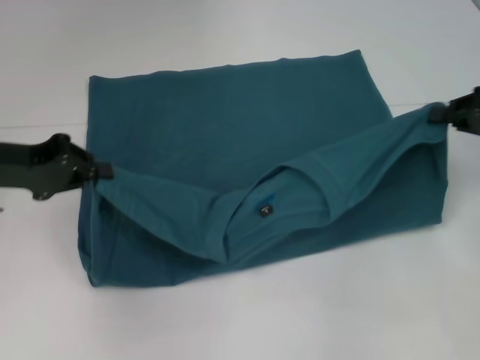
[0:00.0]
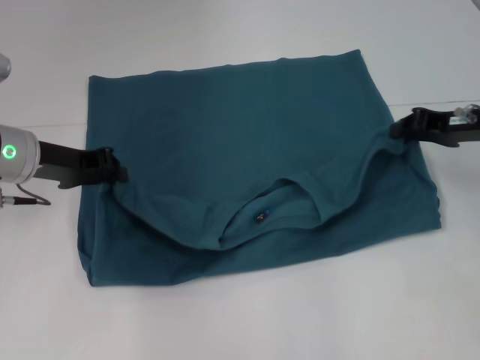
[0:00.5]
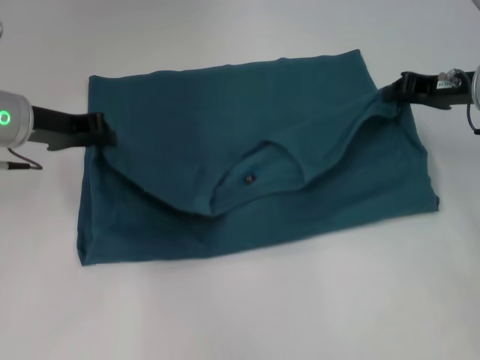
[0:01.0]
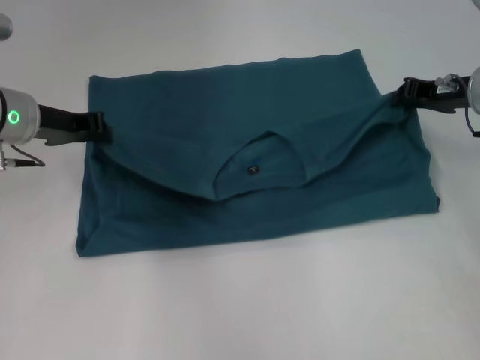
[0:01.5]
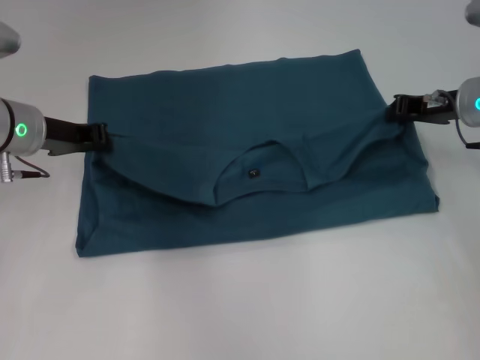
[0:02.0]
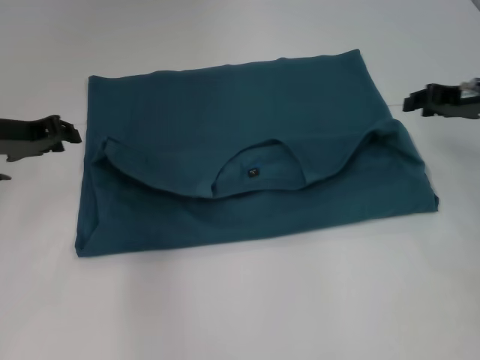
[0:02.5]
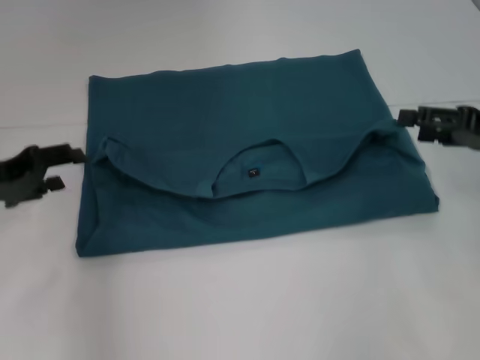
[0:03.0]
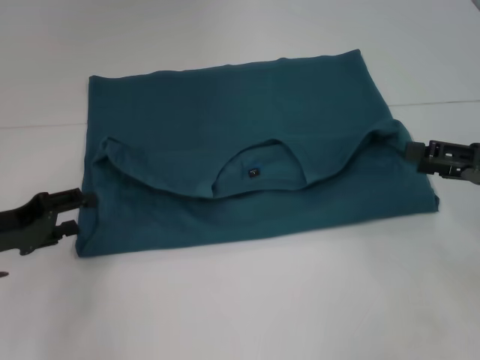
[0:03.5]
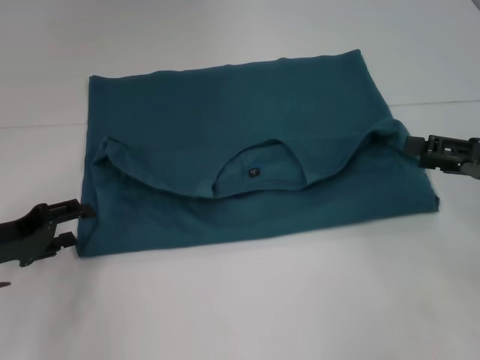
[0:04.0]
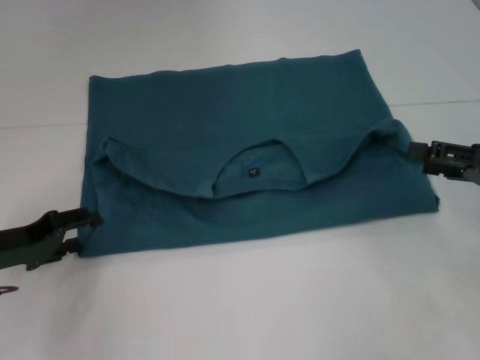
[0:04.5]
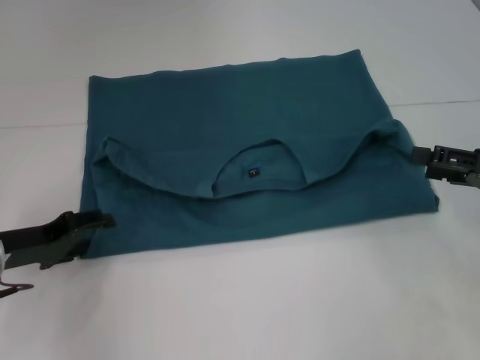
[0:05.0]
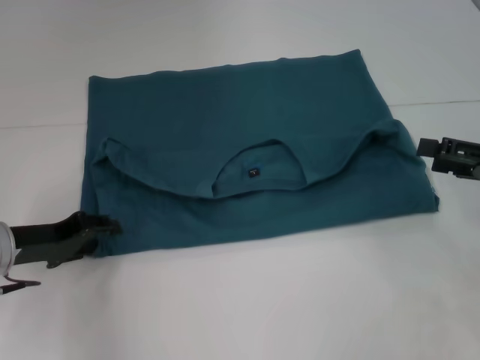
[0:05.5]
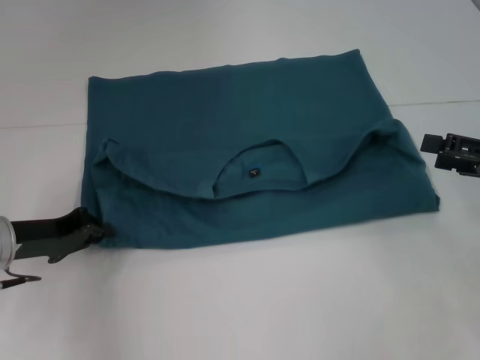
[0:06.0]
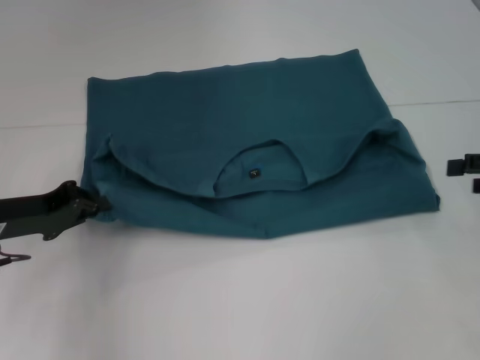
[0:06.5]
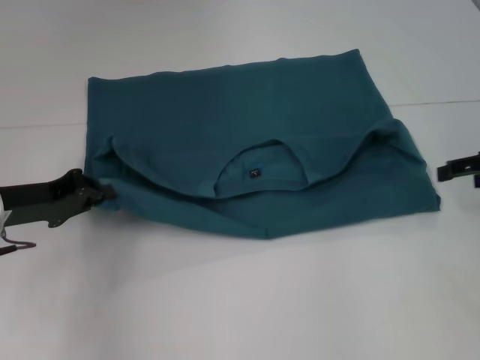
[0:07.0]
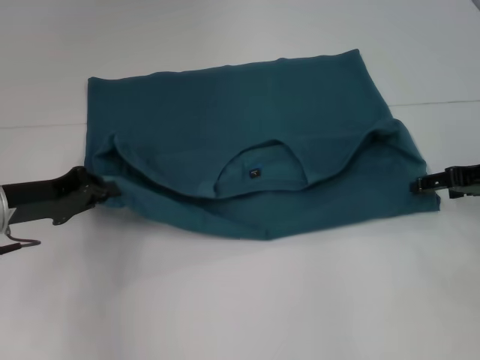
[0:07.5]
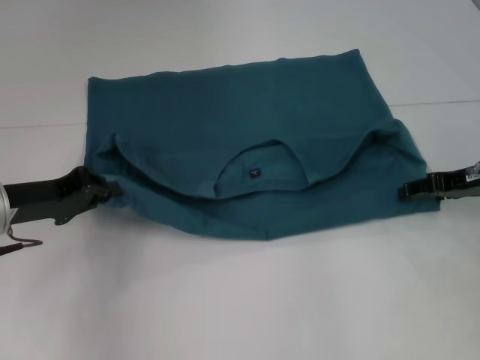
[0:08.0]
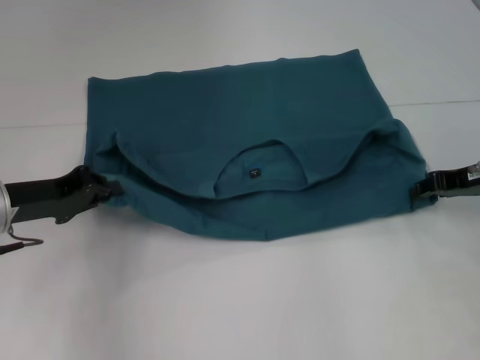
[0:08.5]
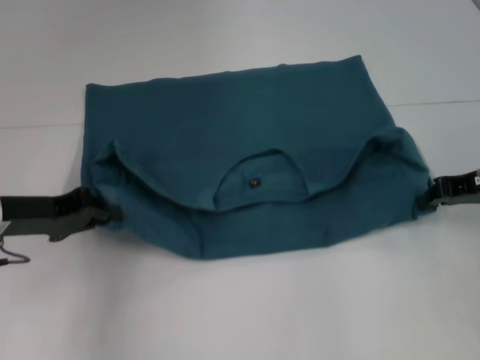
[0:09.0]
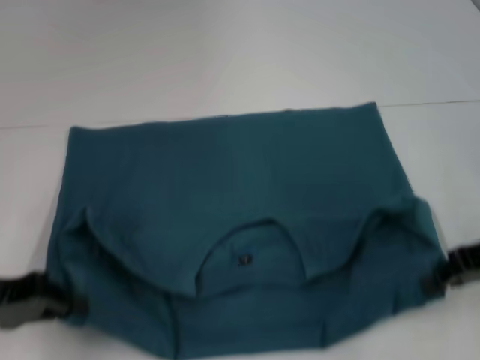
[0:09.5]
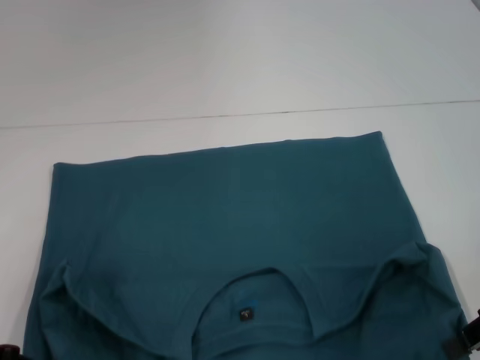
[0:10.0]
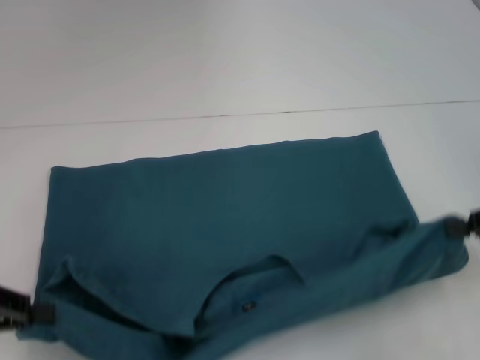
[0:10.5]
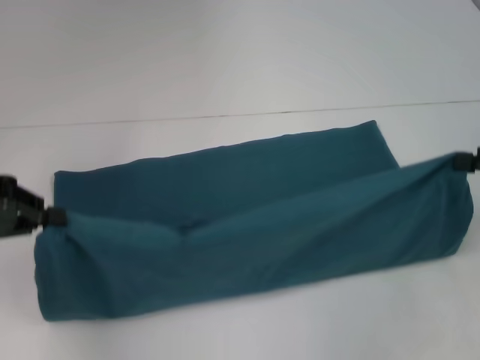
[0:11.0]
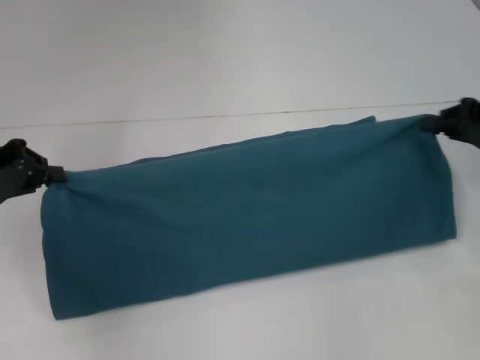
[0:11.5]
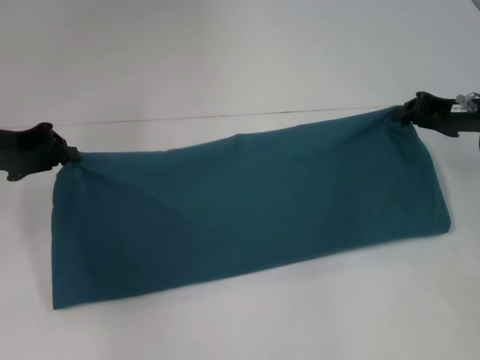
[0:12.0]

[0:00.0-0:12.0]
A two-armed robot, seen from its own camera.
Step, 0:00.0 to 0:02.0: Fold the clothes to the left.
Step, 0:00.0 to 0:02.0: Fold the clothes to the right.
Step, 0:02.5 to 0:09.0: Pull the clothes with your left hand.
Step, 0:02.5 to 0:09.0: Pull the clothes with your right hand.
0:00.0 to 0:02.0: The right gripper travels forward and to the left by about 10 cm. Meanwhile the left gripper shifts some 10 cm forward and to the right.
0:02.0 to 0:04.0: The left gripper moves backward, downward and to the left, roughly 15 cm, and opens up. Meanwhile the right gripper heads backward and to the right, covering about 15 cm, and opens its fingers.
0:04.0 to 0:06.0: The left gripper closes up.
0:06.0 to 0:08.0: The right gripper travels forward by some 10 cm.
0:08.0 to 0:10.0: The right gripper moves backward, some 10 cm, and closes up. Meanwhile the left gripper heads backward and to the left, covering some 15 cm.
0:10.0 to 0:12.0: The grippers both shift forward by some 15 cm.

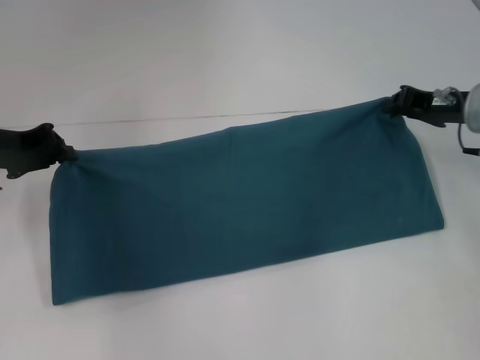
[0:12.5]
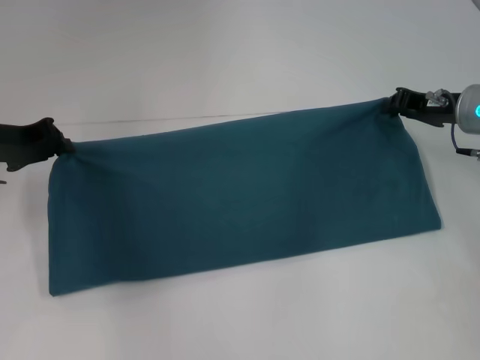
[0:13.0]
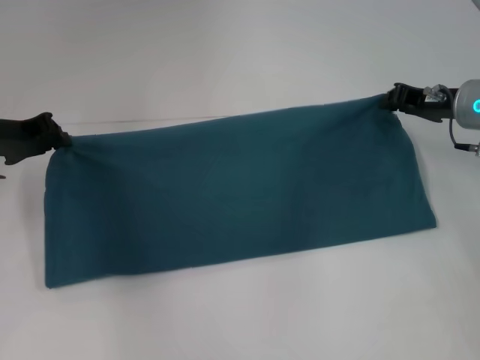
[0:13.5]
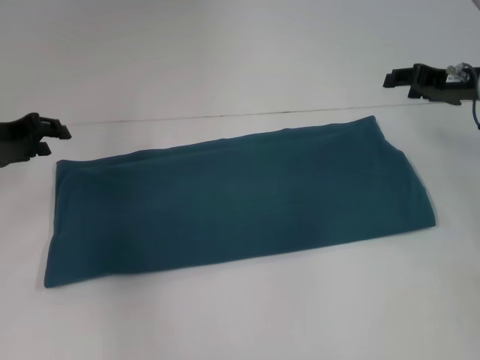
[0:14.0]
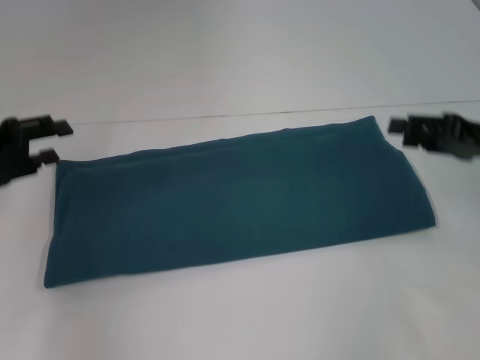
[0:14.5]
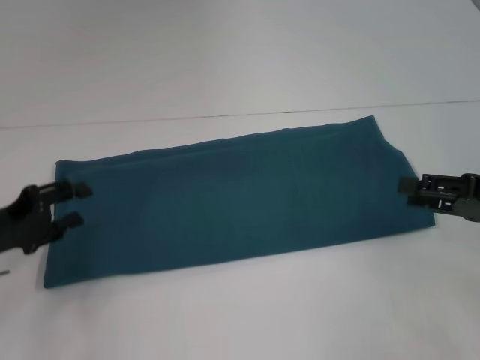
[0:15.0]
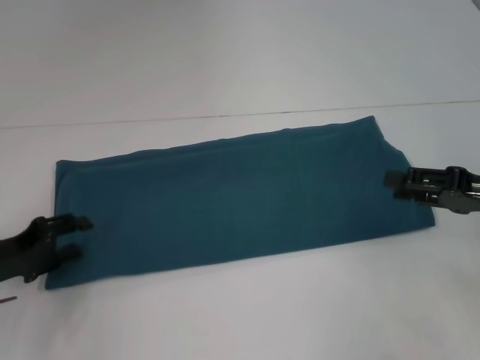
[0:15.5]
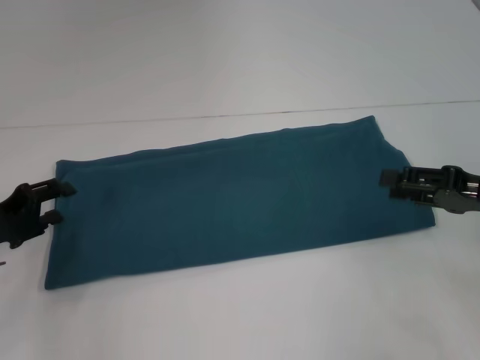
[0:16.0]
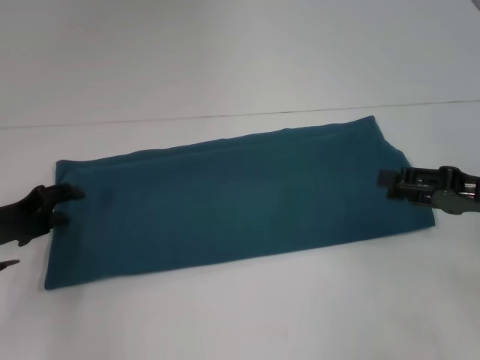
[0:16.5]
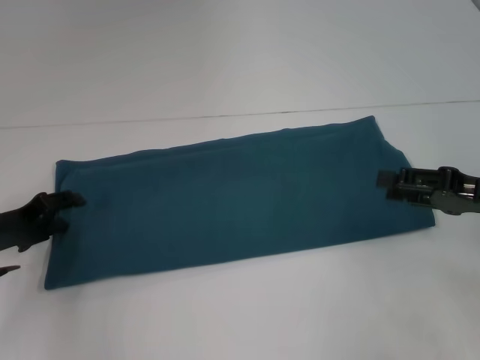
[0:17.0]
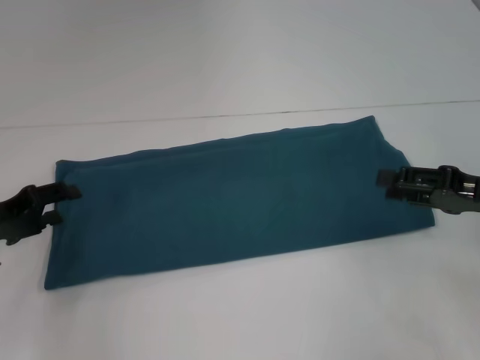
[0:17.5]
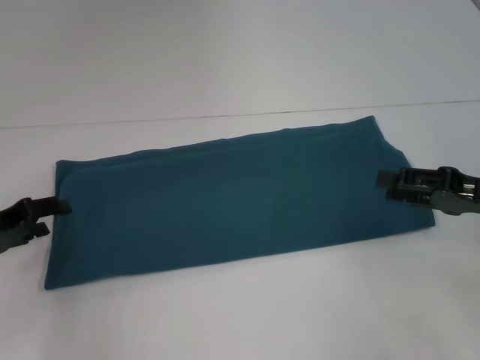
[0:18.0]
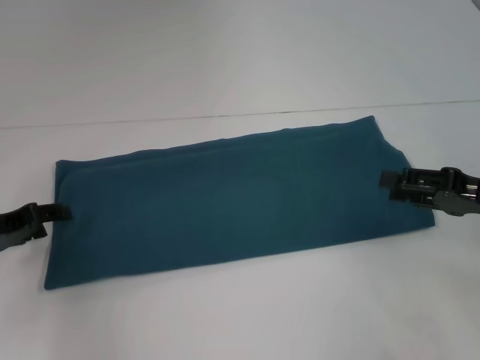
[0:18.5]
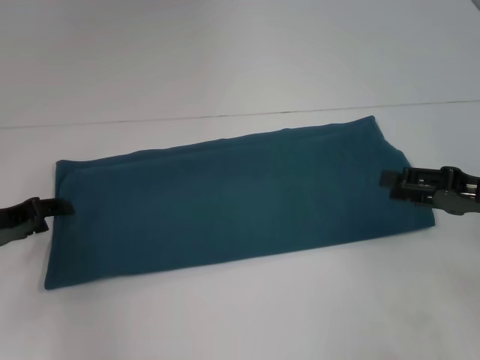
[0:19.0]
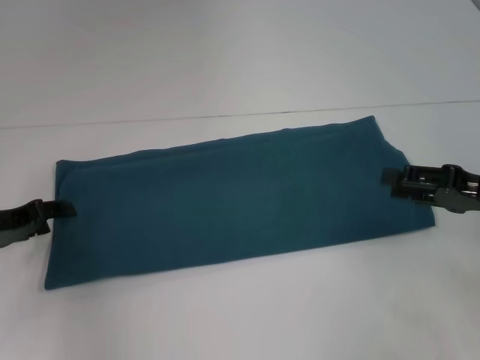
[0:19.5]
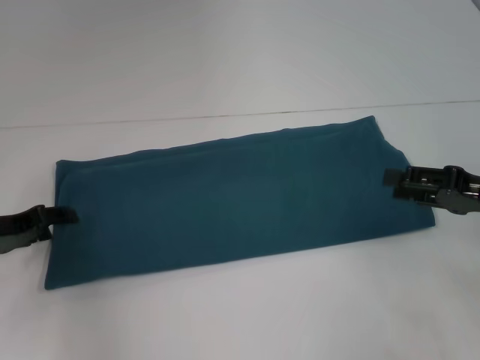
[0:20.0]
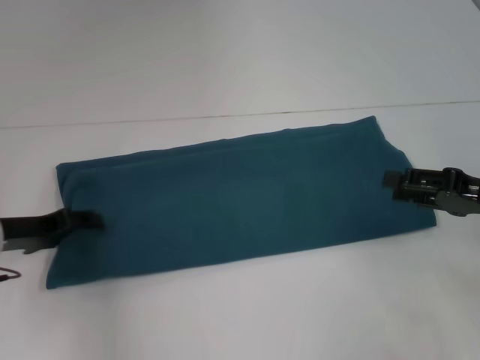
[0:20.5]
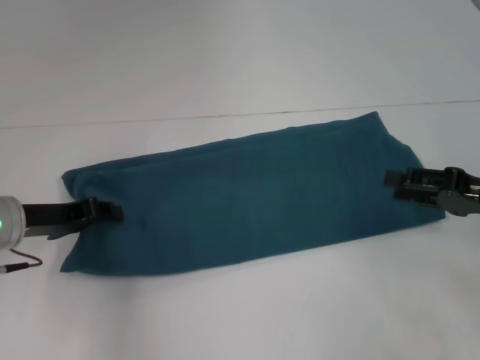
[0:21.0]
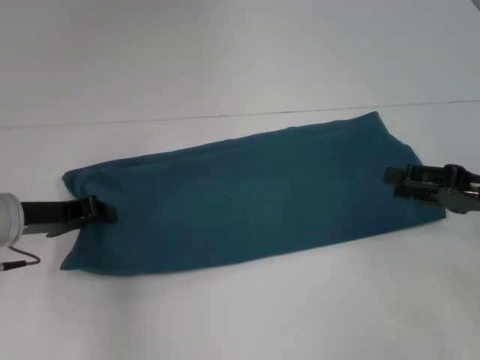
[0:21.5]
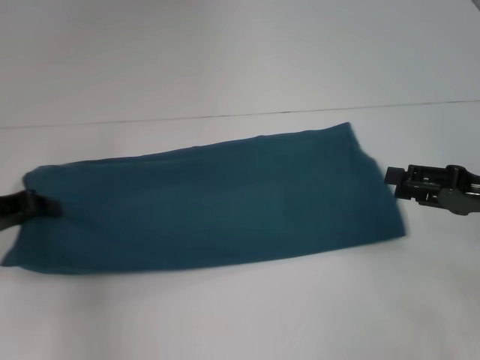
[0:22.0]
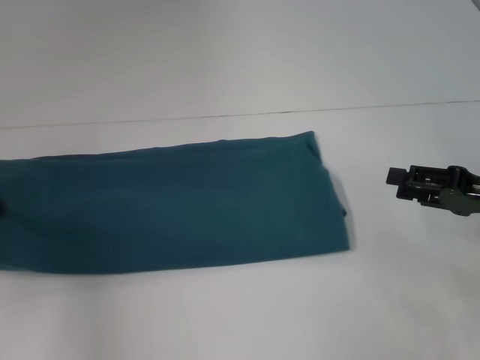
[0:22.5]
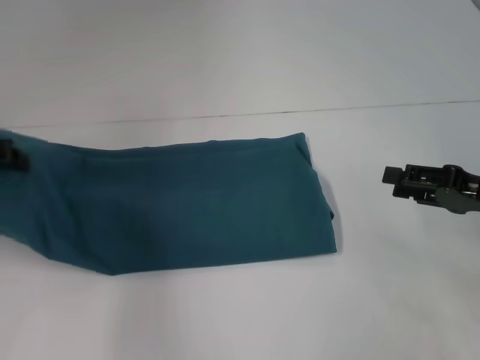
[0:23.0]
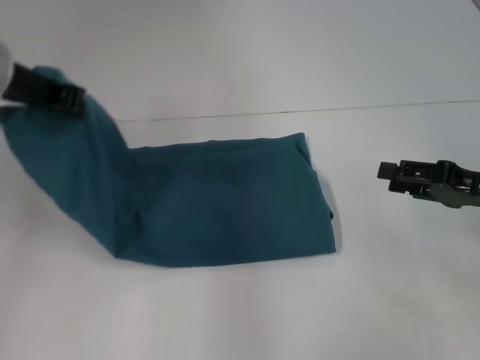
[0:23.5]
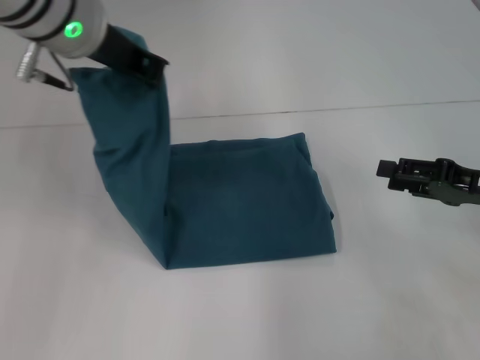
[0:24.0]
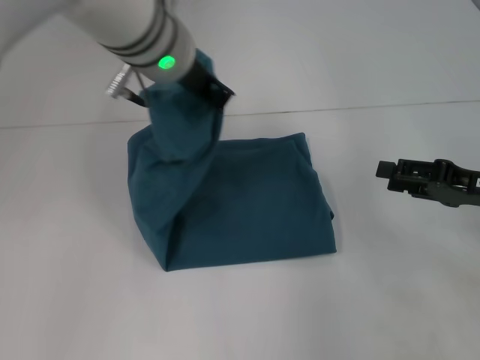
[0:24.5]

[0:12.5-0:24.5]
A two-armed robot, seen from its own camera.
0:12.5 to 0:14.5: Both grippers move backward, about 5 cm. The left gripper opens up, while the right gripper opens its fingers.
0:14.5 to 0:16.5: The left gripper moves downward, some 10 cm.
0:16.5 to 0:18.5: There are only small adjustments of the grippers.
0:18.5 to 0:20.5: There are only small adjustments of the grippers.
0:20.5 to 0:22.5: The left gripper heads to the left and upward, covering about 10 cm, and closes its fingers.
0:22.5 to 0:24.5: The left gripper shifts some 35 cm to the right and upward.

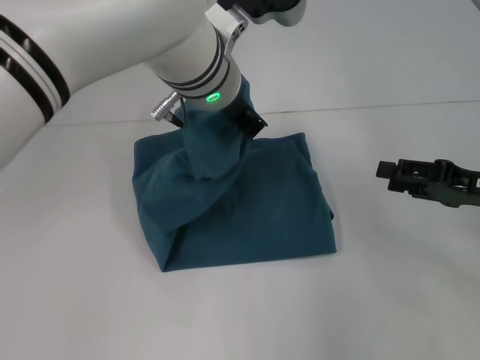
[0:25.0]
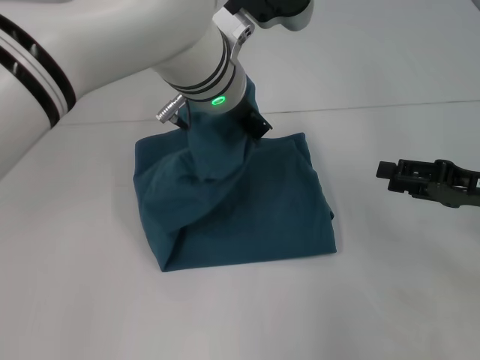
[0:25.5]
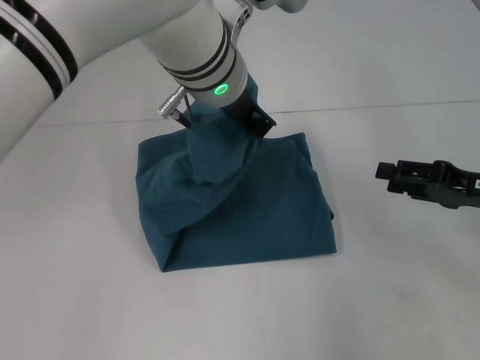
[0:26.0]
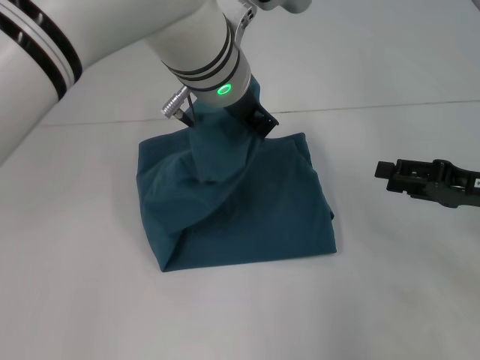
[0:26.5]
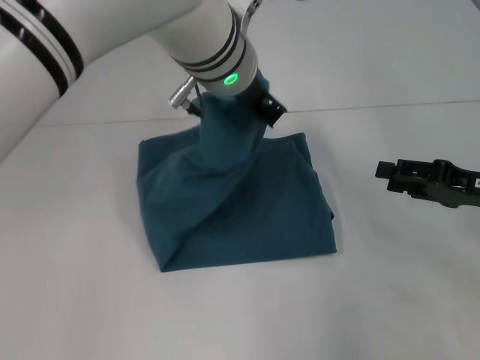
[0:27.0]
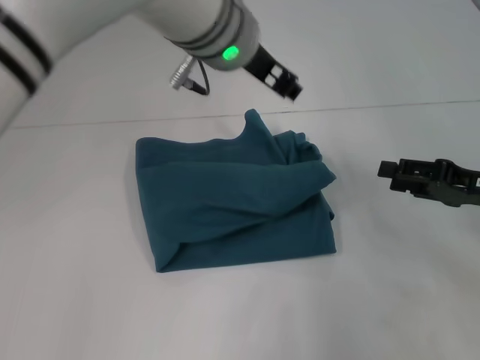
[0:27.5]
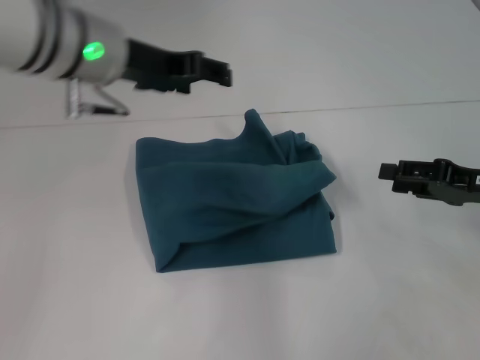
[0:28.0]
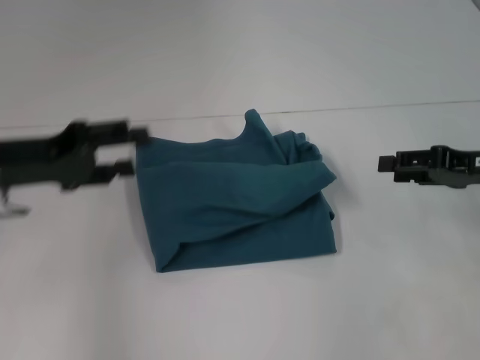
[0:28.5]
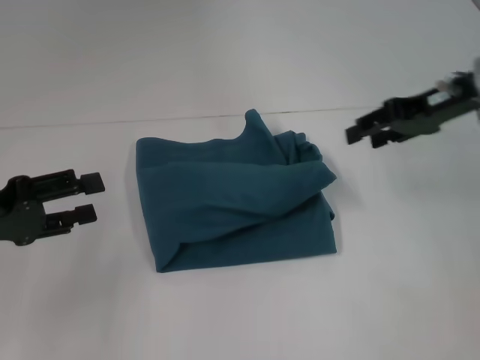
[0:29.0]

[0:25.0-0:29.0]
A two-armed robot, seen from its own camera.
Step, 0:25.0 to 0:27.5: Fold the clothes to the left.
0:25.0 to 0:27.0: The grippers stay close to where they were, moving slightly.
0:27.0 to 0:29.0: The right gripper goes about 15 cm upward, forward and to the left; the left gripper heads to the left, covering roughly 30 cm, and opens.
